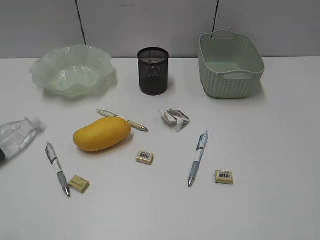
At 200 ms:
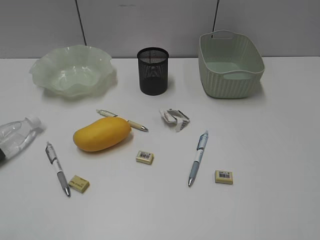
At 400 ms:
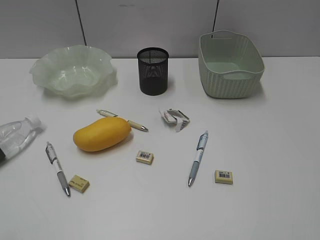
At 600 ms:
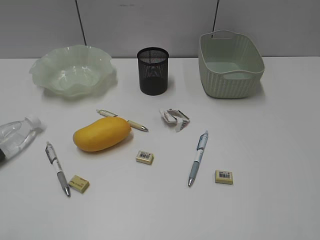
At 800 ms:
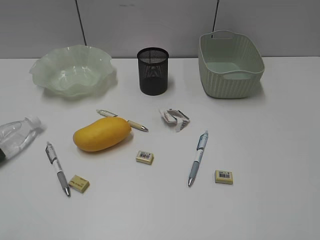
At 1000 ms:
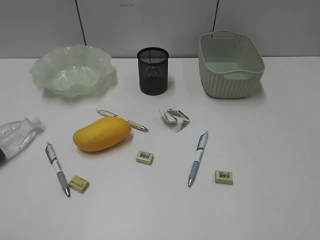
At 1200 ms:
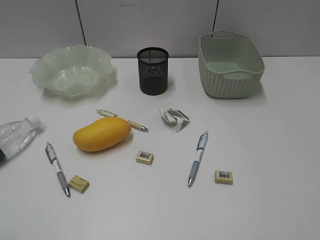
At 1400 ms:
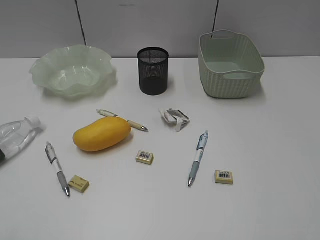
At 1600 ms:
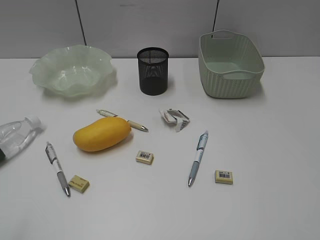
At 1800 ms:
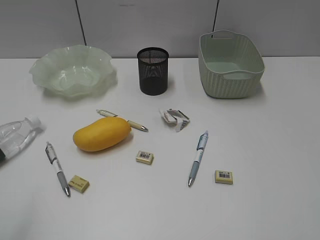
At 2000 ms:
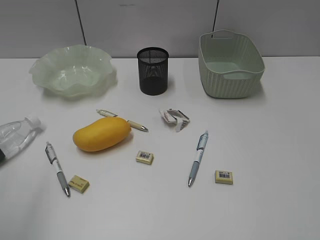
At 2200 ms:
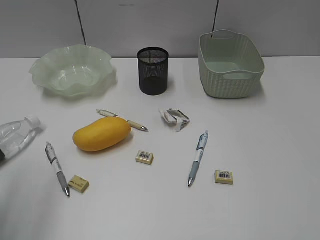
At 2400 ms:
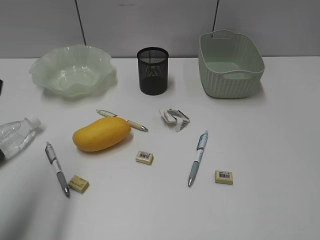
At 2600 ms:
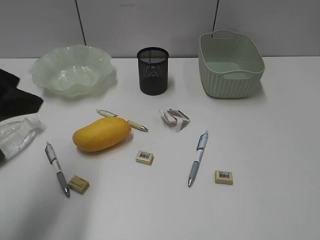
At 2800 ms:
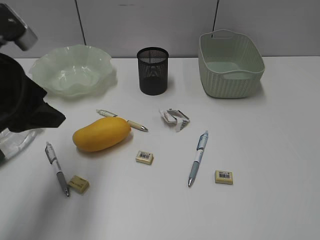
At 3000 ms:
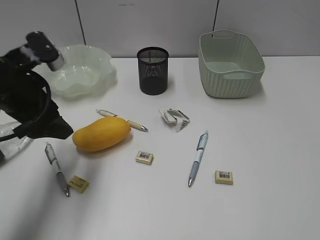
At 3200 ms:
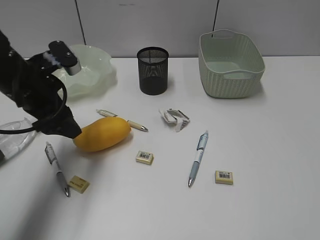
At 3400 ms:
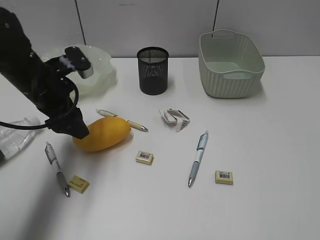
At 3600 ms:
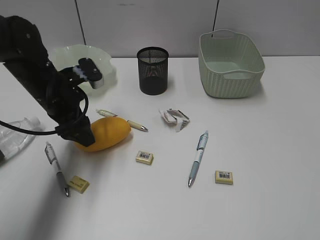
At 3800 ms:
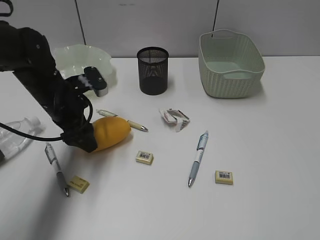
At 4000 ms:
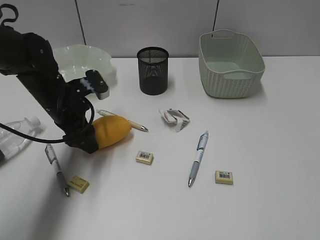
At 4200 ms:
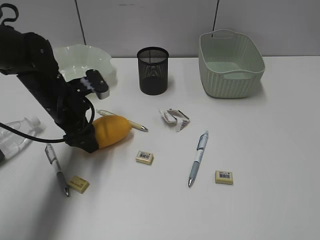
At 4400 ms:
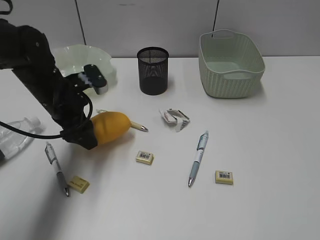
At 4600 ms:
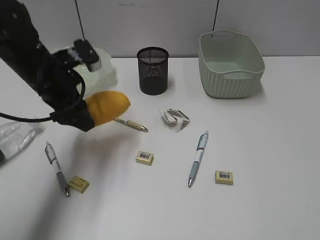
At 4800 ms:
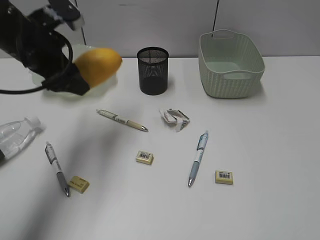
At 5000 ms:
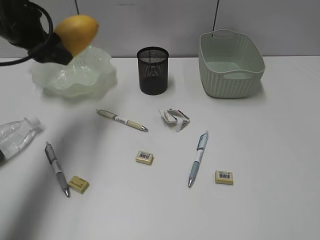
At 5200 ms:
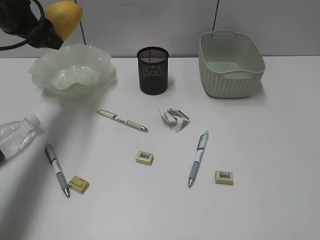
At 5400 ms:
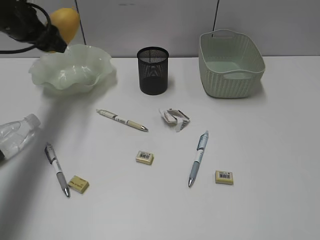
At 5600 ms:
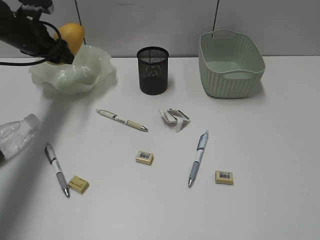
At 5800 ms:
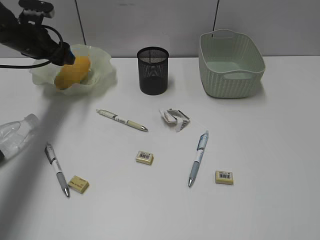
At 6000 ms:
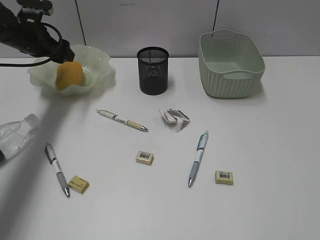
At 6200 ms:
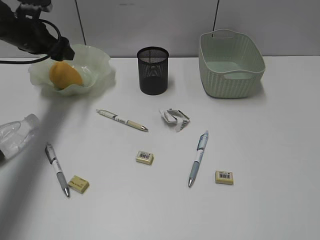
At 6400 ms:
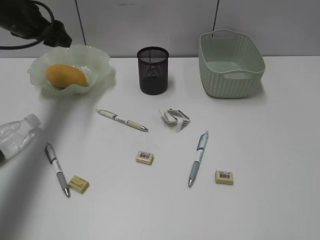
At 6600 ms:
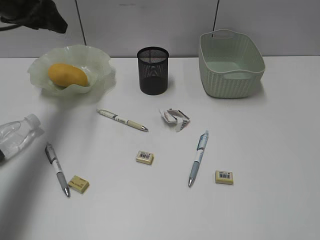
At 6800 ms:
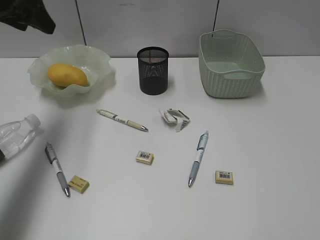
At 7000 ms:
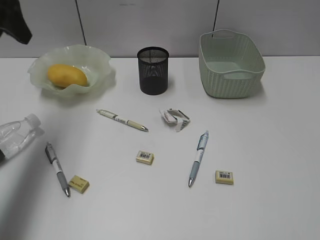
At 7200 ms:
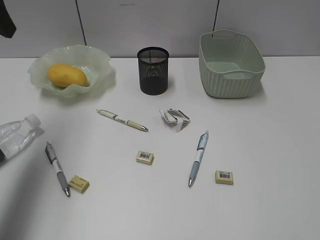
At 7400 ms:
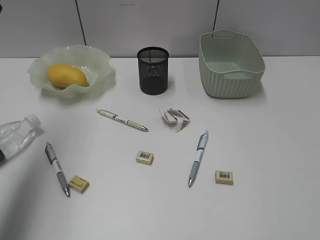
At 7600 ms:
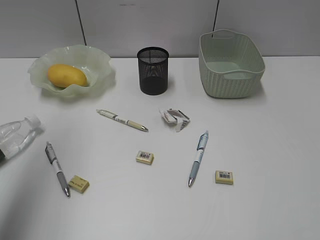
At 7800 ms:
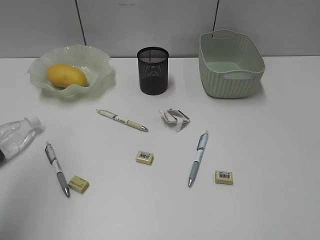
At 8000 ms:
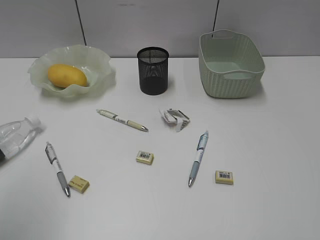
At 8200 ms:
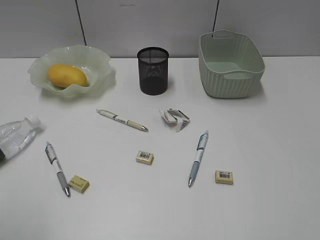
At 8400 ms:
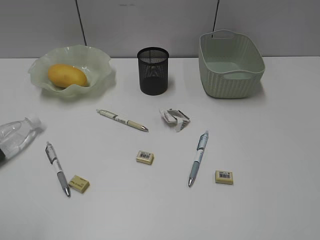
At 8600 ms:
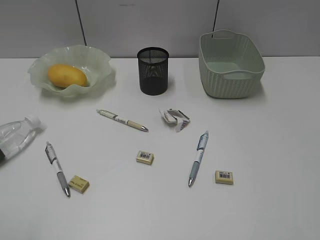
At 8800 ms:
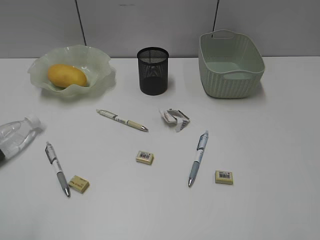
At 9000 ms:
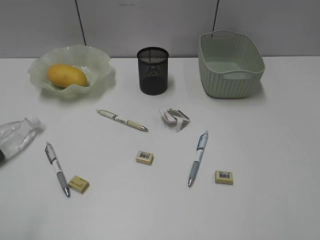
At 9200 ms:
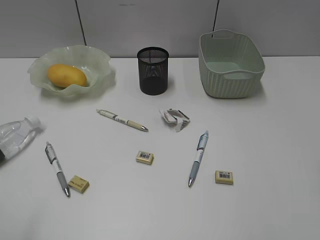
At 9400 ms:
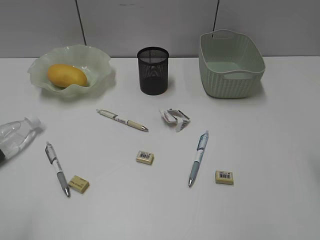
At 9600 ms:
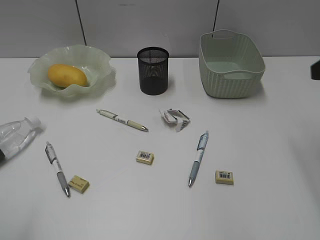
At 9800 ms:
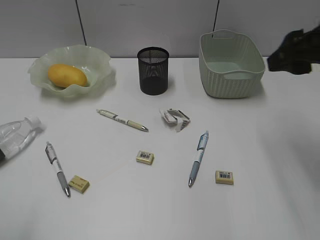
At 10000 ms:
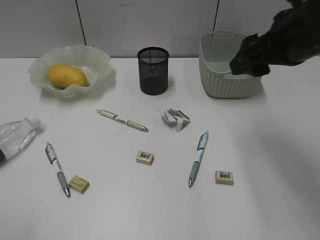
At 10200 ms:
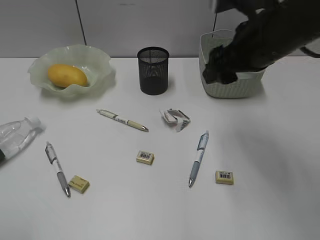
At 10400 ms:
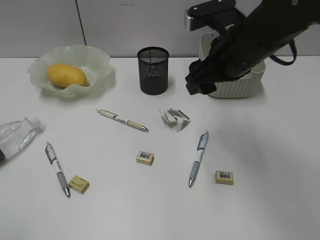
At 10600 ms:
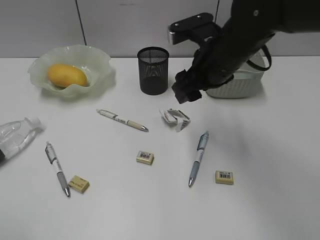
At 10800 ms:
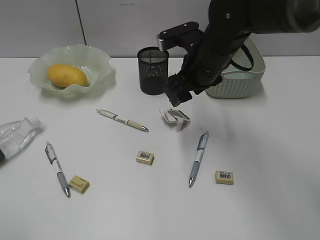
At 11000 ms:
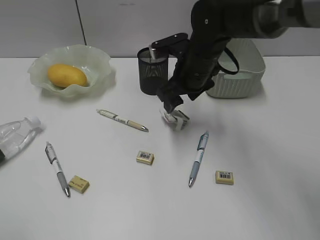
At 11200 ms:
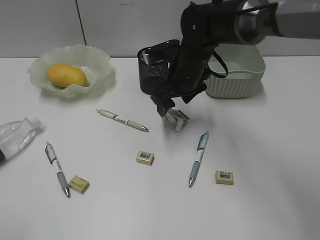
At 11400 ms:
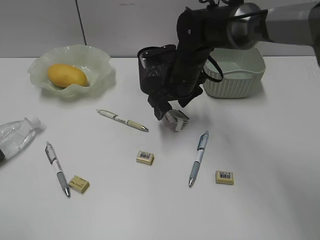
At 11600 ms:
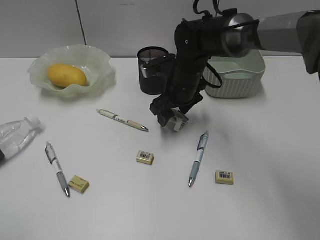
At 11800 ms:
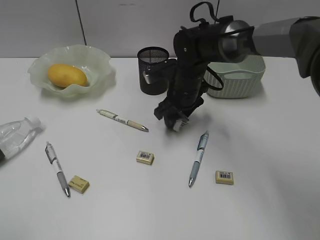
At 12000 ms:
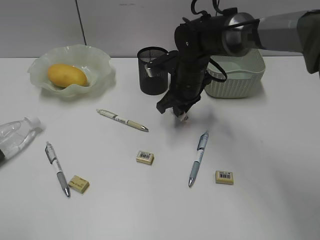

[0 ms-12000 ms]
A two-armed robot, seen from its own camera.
Step, 2400 ms to 4200 ms: Grasp the mango with left gripper.
Step, 4400 ms to 5800 ms: Place the mango in the plate with left gripper.
Step, 6000 ms to 11800 ms: Grasp the waste paper with right gripper.
1600 ms to 3000 ms: The left gripper heads forward, covering about 25 cm.
3000 ms to 4400 ms: The left gripper shifts approximately 10 cm downward and forward.
4400 ms to 6000 ms: The left gripper goes roughly 15 cm forward and to the left.
6000 ms to 7600 ms: The left gripper shifts about 30 cm backward and upward.
7600 ms to 9000 ms: The left gripper travels backward and downward by some 25 cm.
9000 ms to 10400 ms: The right gripper heads forward and to the left, covering approximately 30 cm.
10400 ms to 12000 ms: The right gripper goes roughly 15 cm downward, forward and to the left, and closes up.

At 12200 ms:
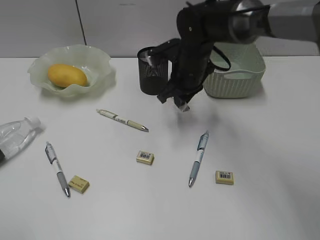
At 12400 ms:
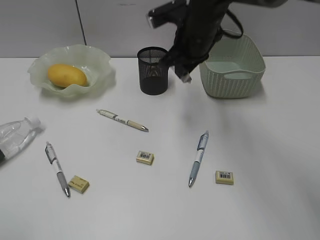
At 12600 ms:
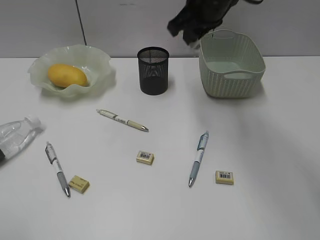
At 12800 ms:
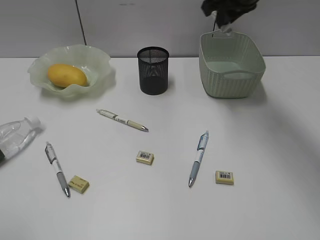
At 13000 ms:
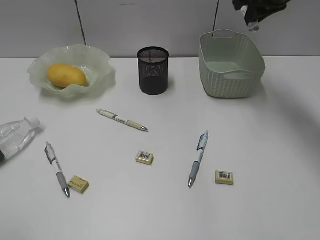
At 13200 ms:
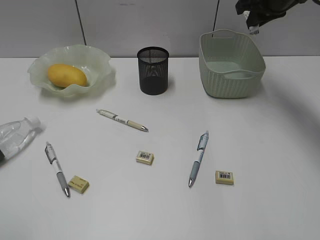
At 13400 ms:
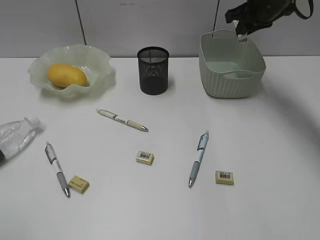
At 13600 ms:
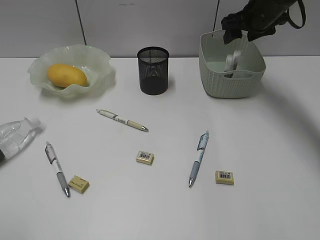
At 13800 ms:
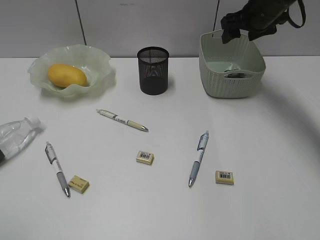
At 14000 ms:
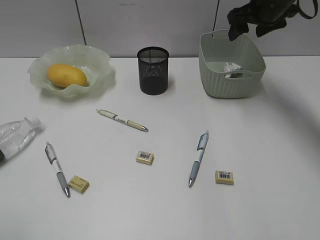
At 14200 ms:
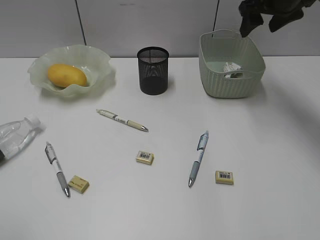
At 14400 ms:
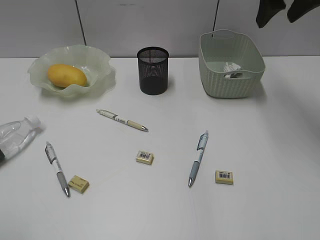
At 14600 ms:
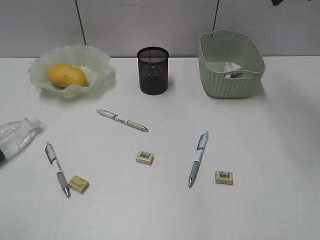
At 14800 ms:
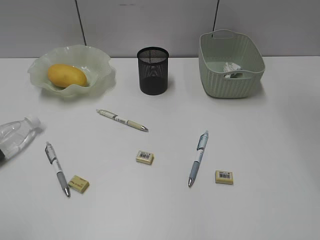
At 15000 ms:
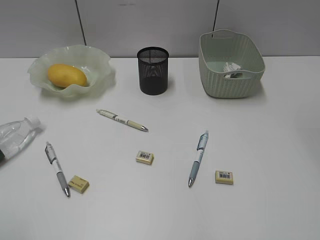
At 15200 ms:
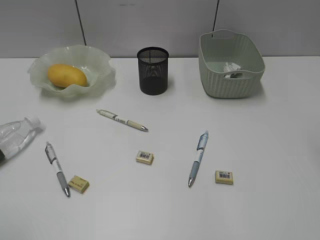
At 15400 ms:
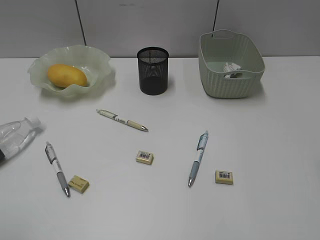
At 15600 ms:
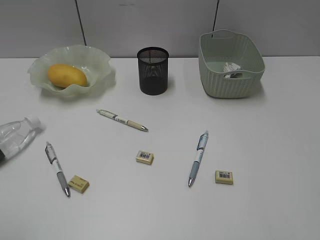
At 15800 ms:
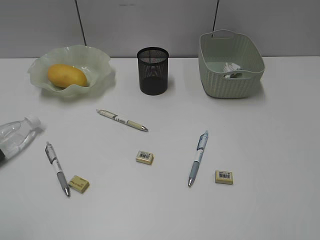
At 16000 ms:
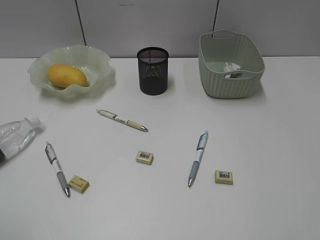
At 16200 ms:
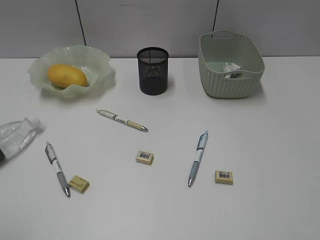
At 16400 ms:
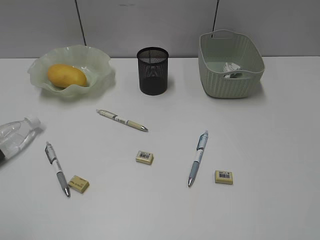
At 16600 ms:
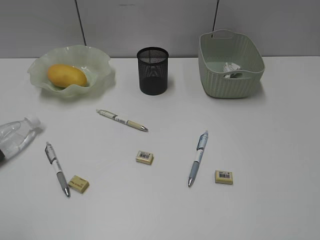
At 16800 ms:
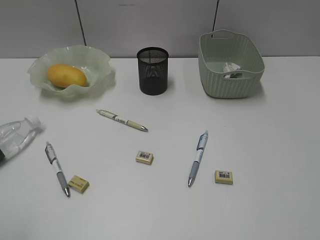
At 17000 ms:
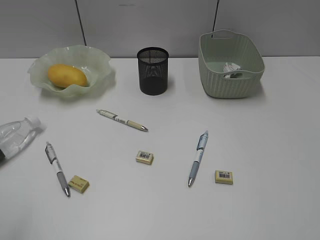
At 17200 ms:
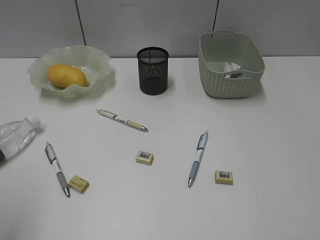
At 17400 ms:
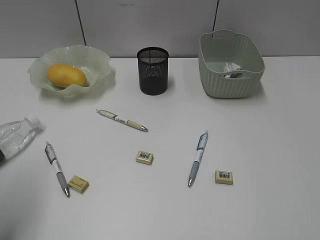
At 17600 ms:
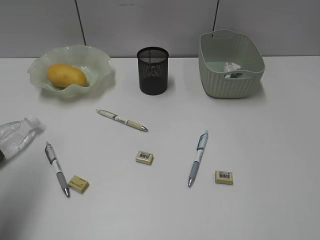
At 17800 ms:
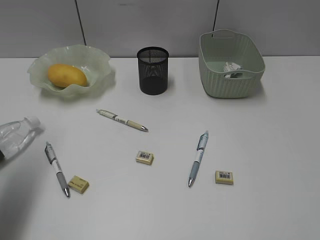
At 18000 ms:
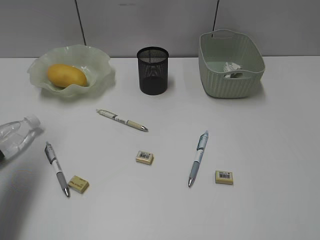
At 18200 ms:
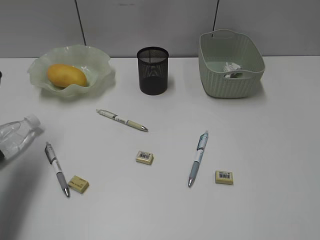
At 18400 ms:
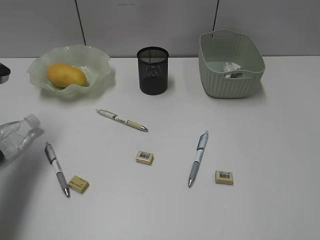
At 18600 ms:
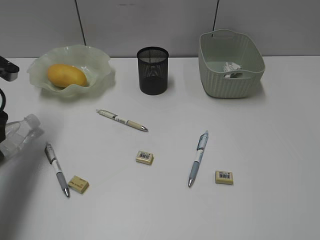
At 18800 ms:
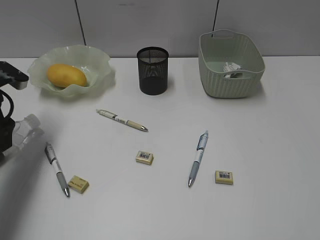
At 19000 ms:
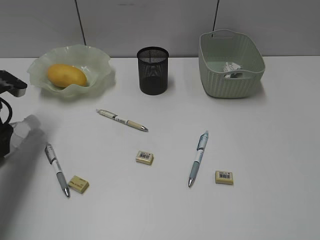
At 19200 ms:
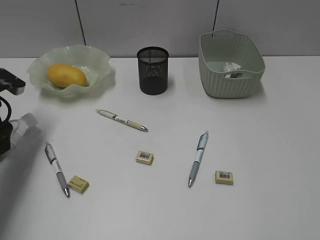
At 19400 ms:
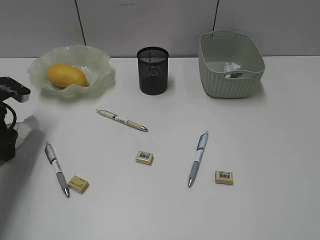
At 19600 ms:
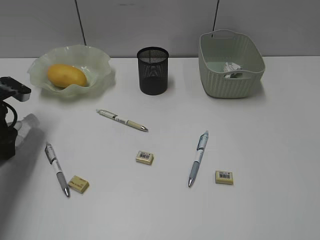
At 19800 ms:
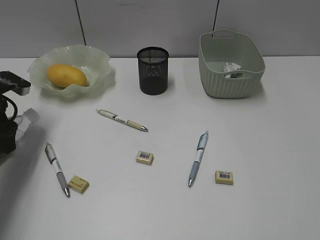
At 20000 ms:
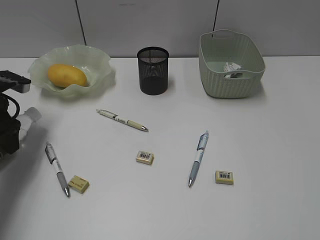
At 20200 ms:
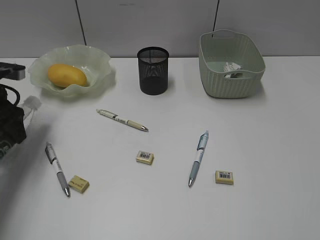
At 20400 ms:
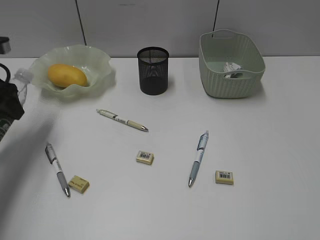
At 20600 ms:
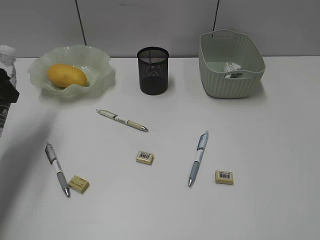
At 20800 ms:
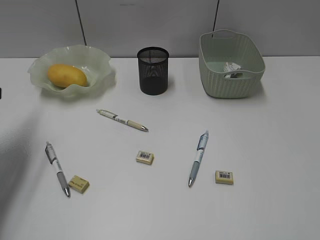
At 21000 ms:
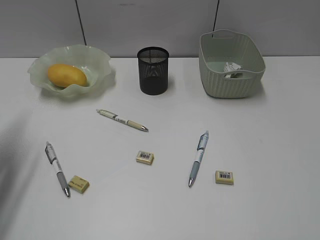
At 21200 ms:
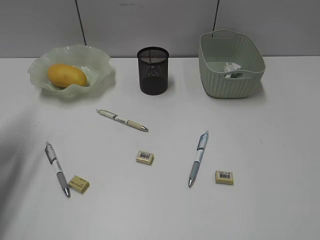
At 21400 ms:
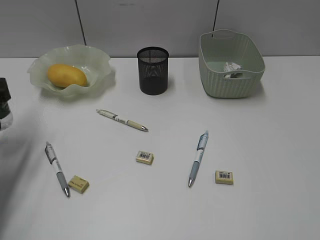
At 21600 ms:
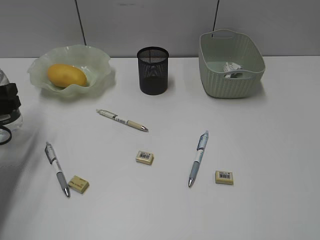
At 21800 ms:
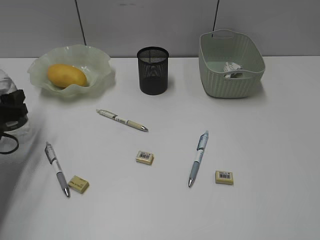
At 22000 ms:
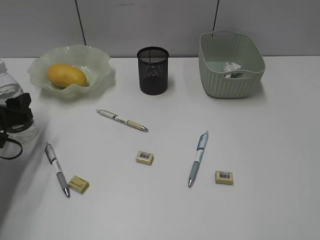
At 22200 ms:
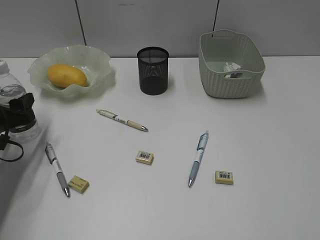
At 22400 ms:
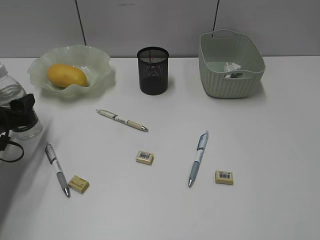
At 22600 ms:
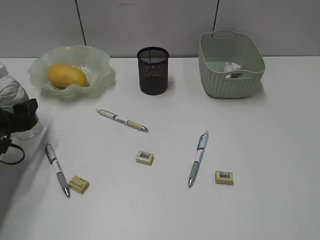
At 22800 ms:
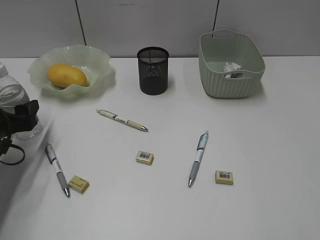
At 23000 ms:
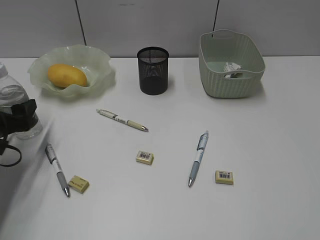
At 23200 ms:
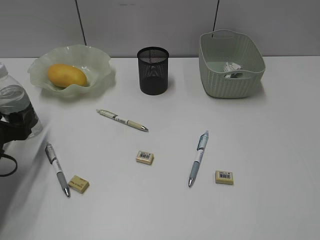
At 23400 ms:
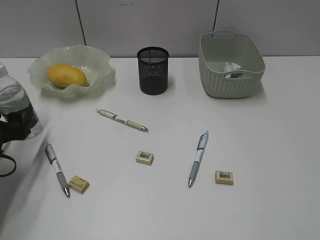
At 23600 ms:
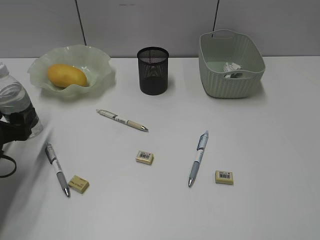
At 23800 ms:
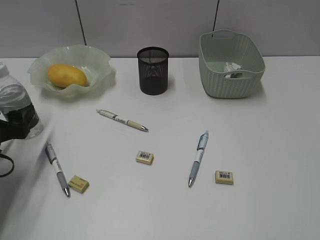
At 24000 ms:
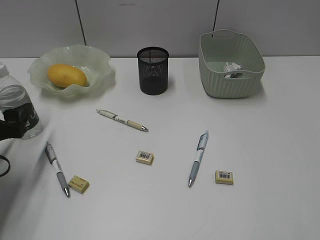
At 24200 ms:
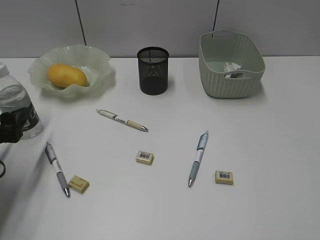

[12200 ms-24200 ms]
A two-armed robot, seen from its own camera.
Step, 12200 ms to 13600 ms: Place the waste paper in the basket with right gripper.
Step, 13800 ms to 19400 ms: Grasp the bottle with left gripper.
12200 ms to 13800 ms: The right gripper is displaced to the right, forward and upward by roughly 20 cm, and opens up.
13800 ms to 15200 ms: The right gripper heads backward and upward, covering about 35 cm.
16600 ms to 18200 ms: The left gripper heads forward, covering approximately 25 cm.
18200 ms to 19800 ms: The left gripper shifts some 10 cm forward and downward.
19800 ms to 21200 ms: The left gripper is displaced backward and upward by some 10 cm.
21200 ms to 22600 ms: The left gripper moves downward, approximately 10 cm.
22600 ms to 24200 ms: The left gripper moves approximately 5 cm.